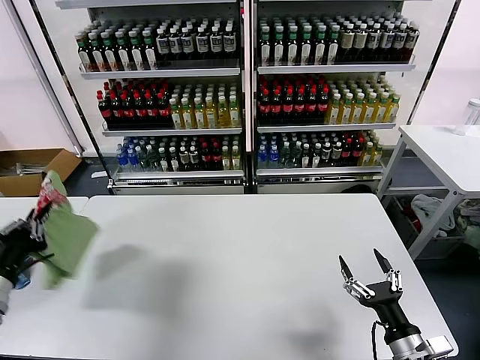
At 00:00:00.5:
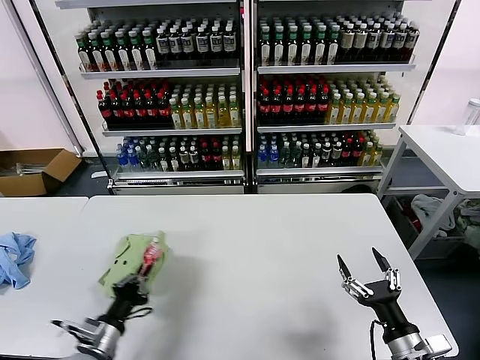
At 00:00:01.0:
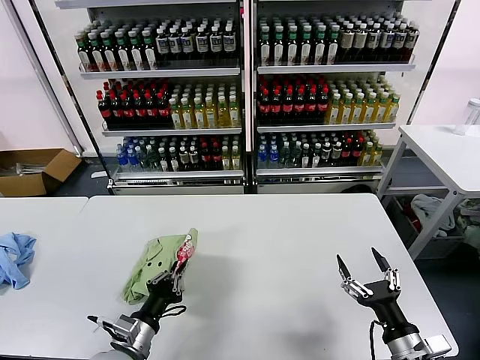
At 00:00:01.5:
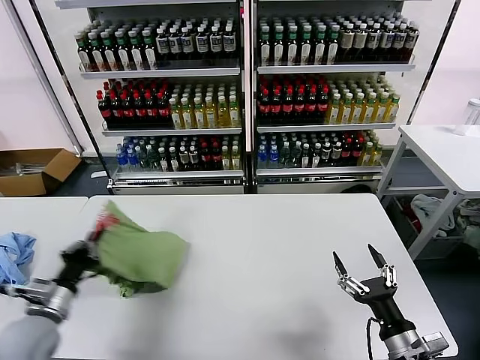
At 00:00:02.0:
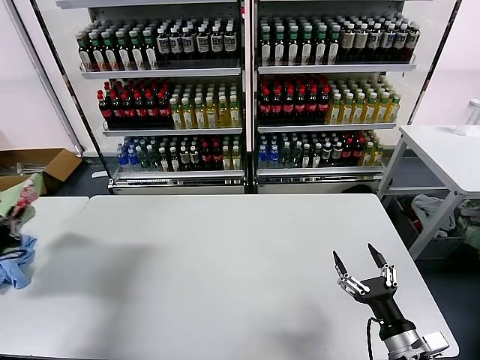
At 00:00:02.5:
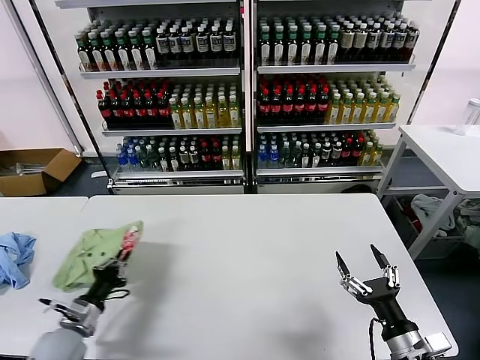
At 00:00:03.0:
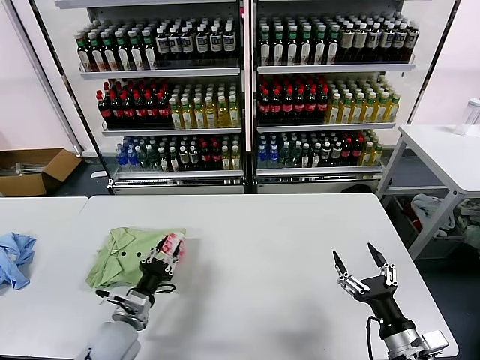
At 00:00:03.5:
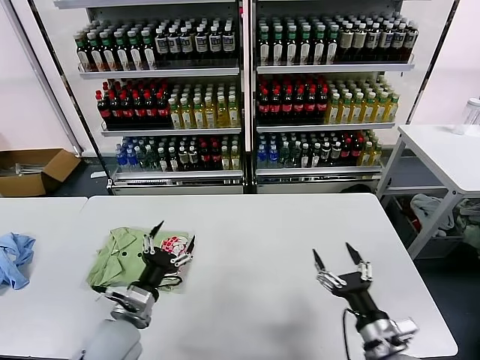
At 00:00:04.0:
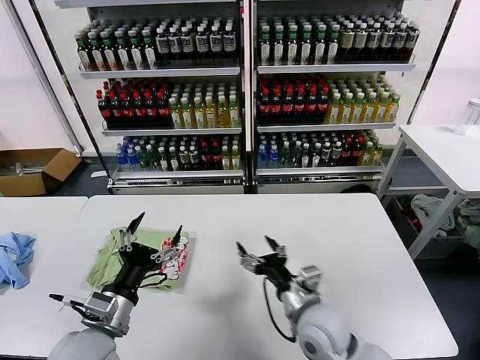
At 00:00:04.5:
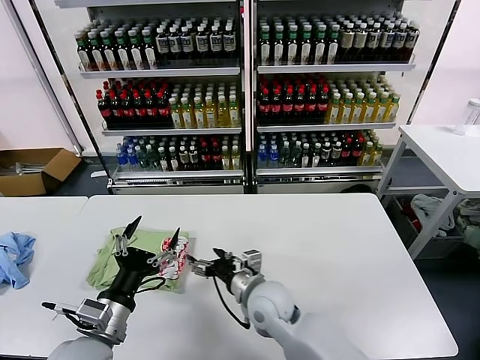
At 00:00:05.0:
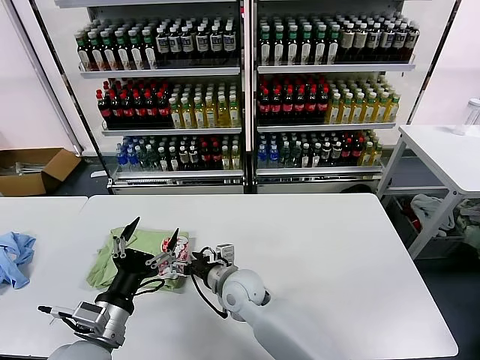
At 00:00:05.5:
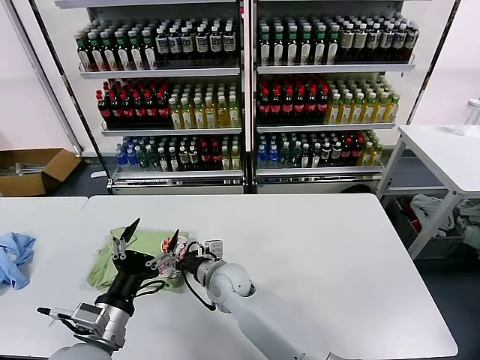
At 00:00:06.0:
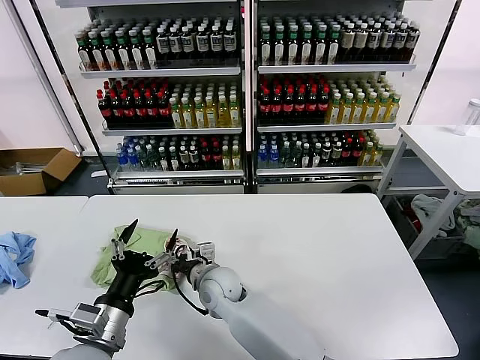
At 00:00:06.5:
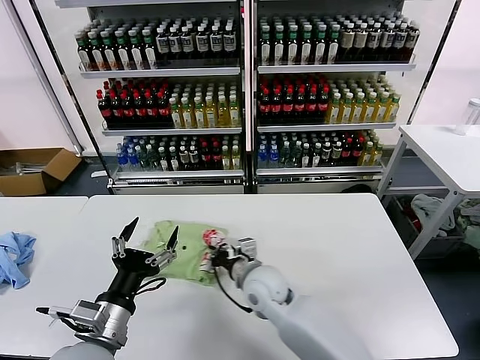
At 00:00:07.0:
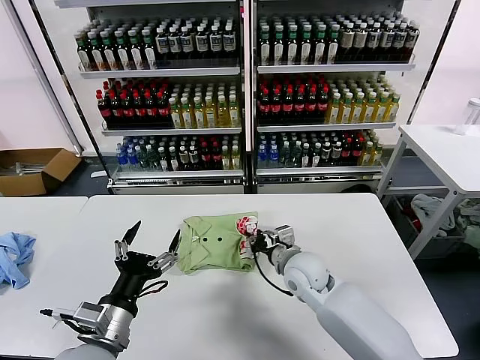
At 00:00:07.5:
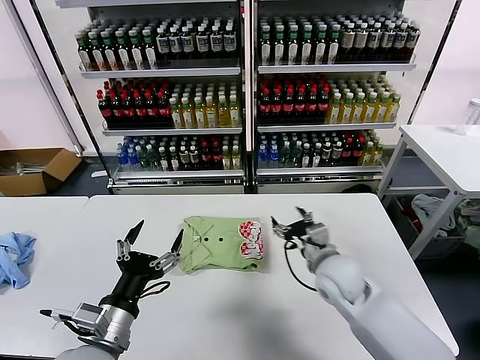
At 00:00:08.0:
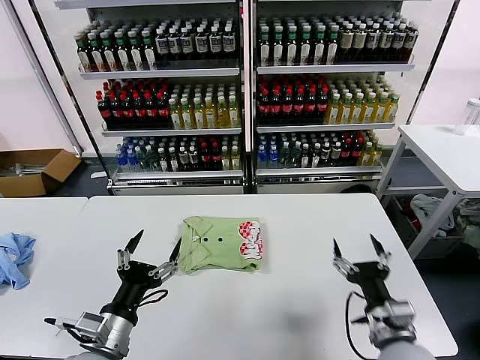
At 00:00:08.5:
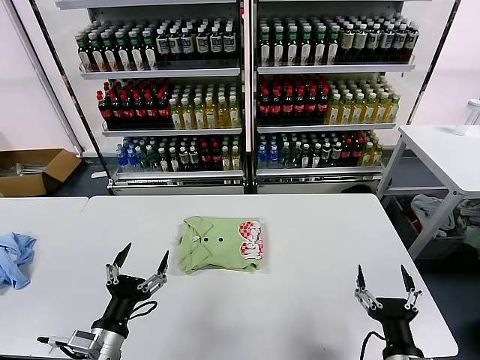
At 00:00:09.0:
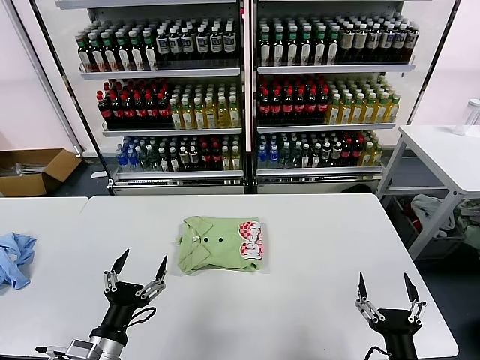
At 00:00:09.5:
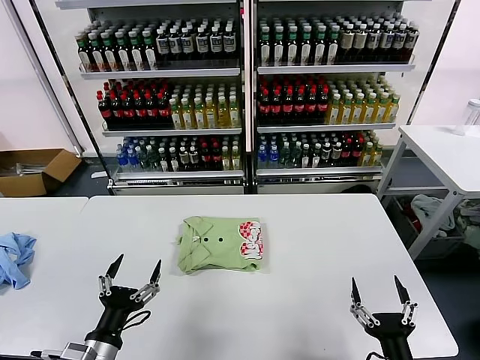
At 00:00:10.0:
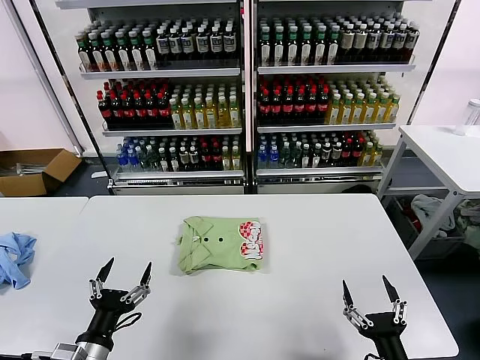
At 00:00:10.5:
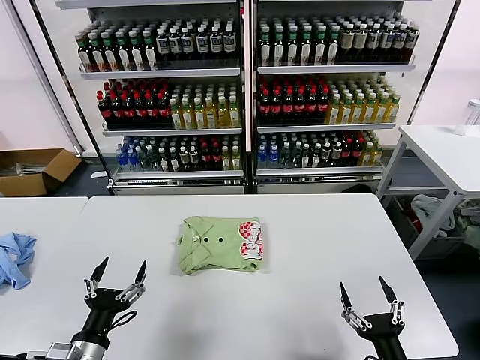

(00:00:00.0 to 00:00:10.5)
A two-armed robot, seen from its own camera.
Task of the whole recording: fold and organize the clothes.
Step, 00:00:00.0 - 00:00:03.0: Flip the folded clothes over with left gripper.
Step, 00:00:03.5 - 00:00:07.0: Drag the clothes to the center of the table.
00:00:00.0 - 00:00:02.0: The left gripper moves to the left and downward, about 15 cm.
00:00:02.0 - 00:00:04.0: The left gripper is displaced to the right by roughly 30 cm, and opens up, while the right gripper moves to the left and forward, some 20 cm.
00:00:04.0 - 00:00:06.5: The right gripper is displaced to the left and forward by roughly 15 cm, and closes up.
00:00:06.5 - 00:00:08.5: The left gripper moves downward, roughly 5 cm; the right gripper travels to the right and backward by some 35 cm, and opens.
00:00:08.5 - 00:00:10.5: The grippers stay close to where they were, moving slightly.

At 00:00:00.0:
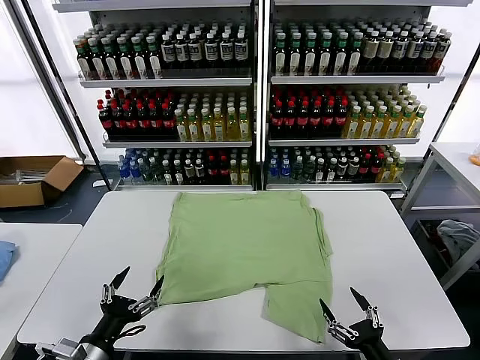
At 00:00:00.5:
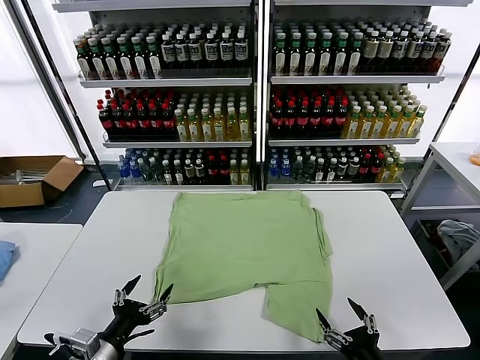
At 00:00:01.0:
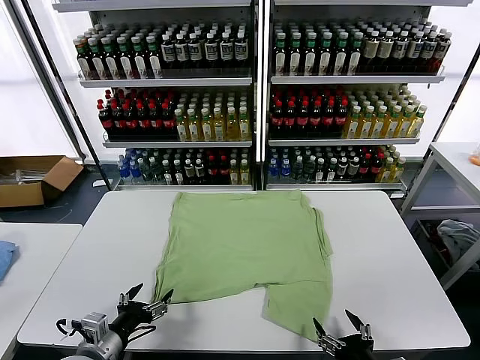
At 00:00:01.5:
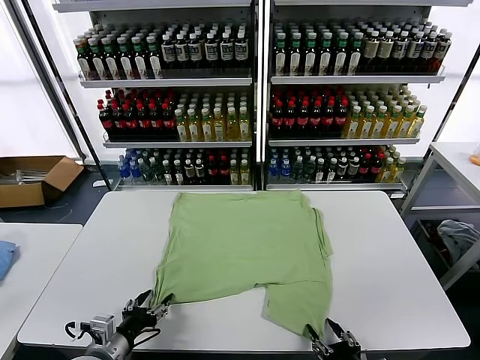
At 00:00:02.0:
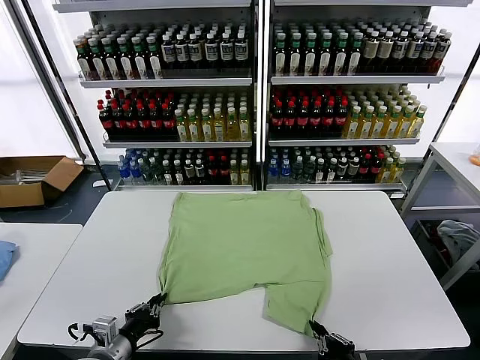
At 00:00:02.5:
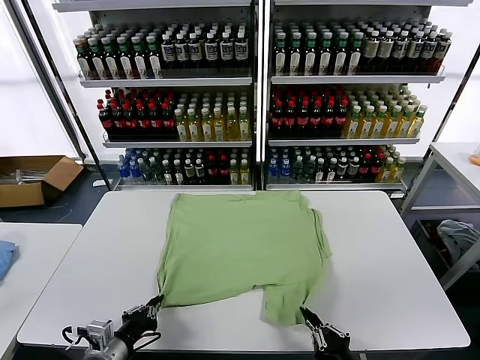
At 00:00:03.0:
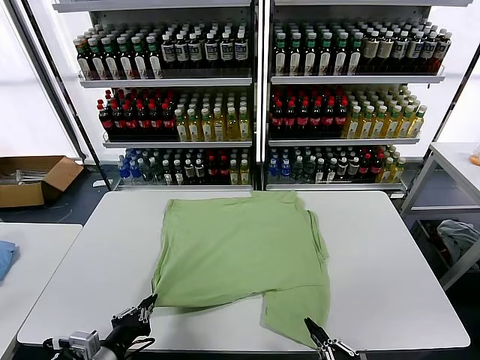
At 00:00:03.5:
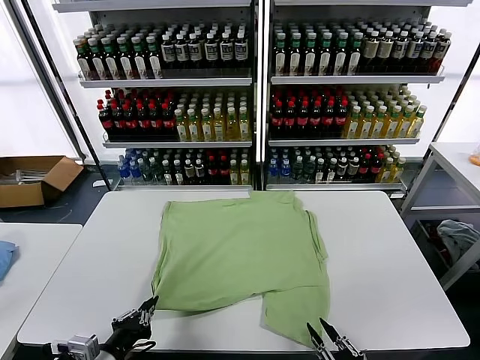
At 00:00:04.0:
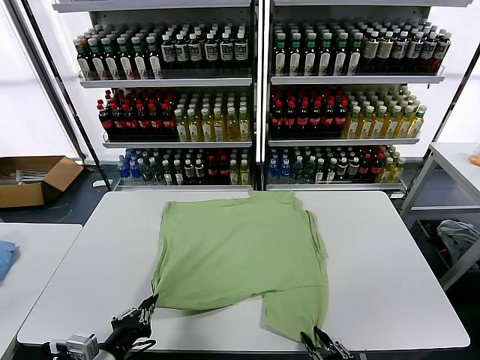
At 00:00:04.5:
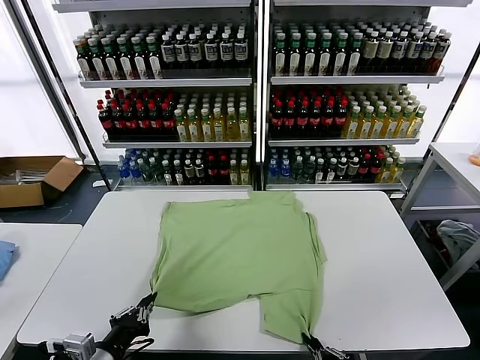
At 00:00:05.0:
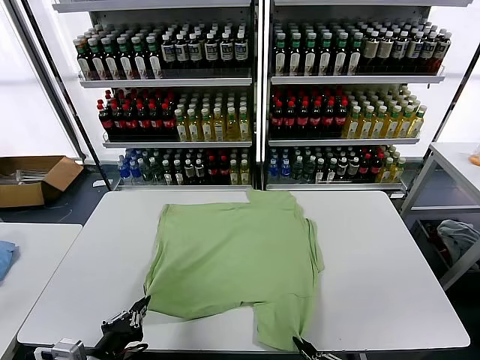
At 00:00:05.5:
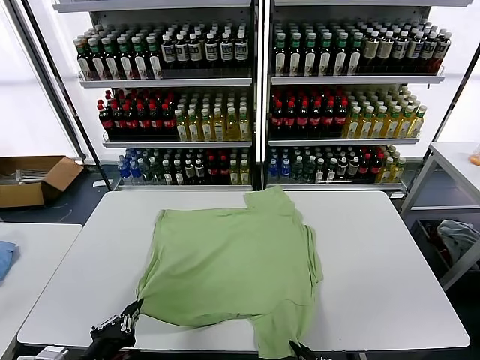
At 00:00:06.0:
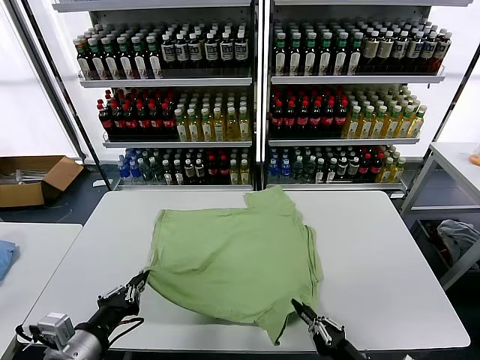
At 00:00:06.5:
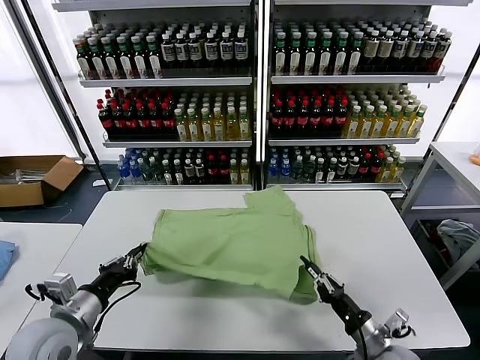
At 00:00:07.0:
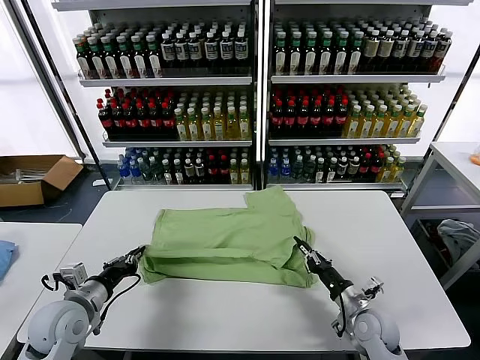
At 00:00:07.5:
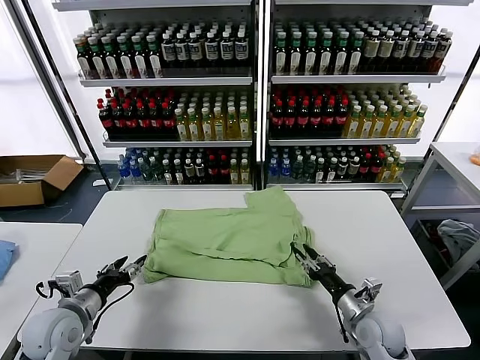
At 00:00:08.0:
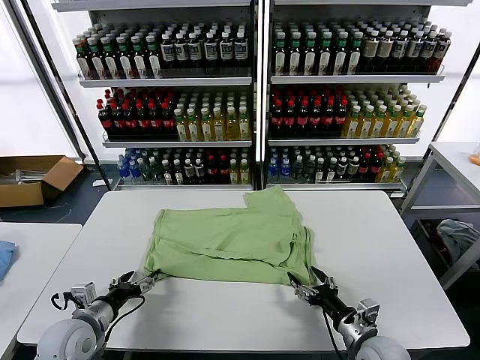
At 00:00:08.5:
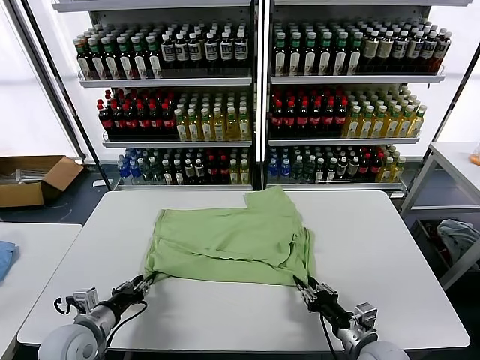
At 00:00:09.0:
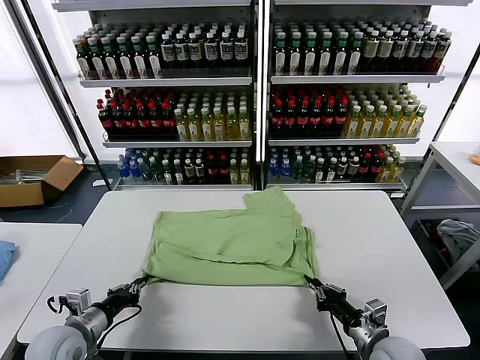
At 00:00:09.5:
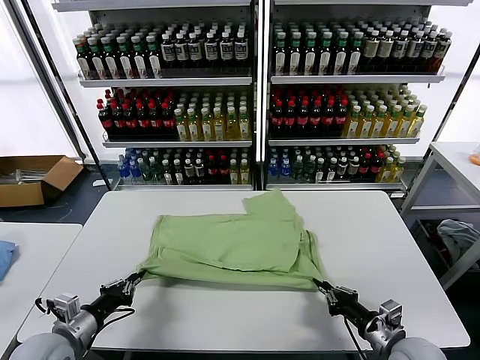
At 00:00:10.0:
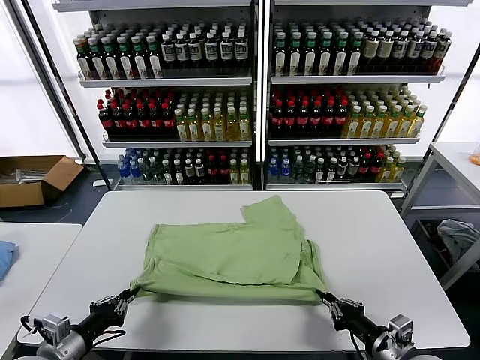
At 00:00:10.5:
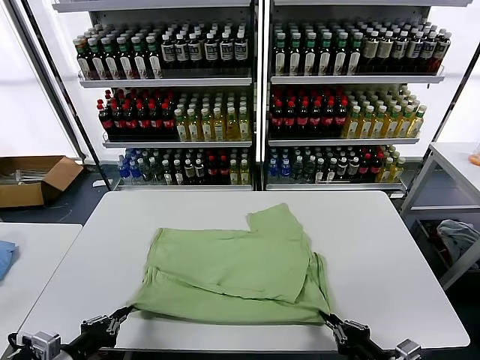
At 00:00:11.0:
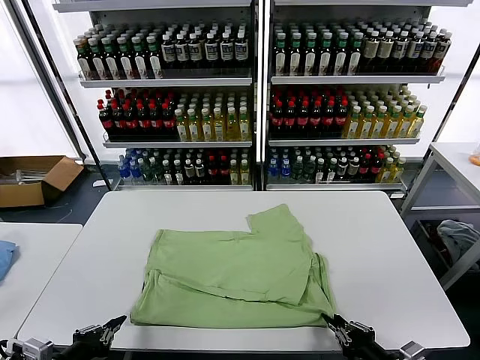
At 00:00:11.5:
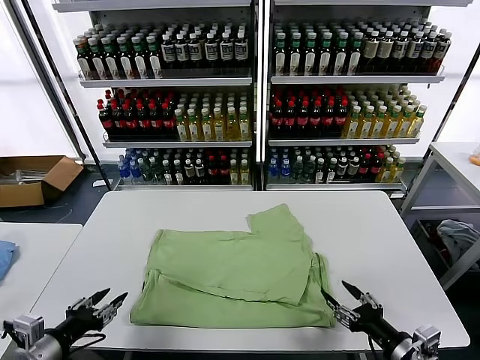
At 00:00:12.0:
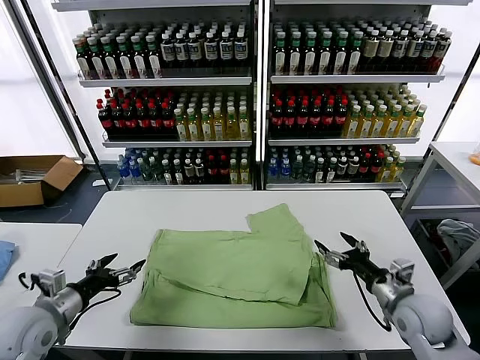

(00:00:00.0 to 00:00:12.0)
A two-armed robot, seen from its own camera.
Task of the whole recording: fold and organize the clothes.
Step, 00:00:00.0 - 00:00:04.0: use both grippers simultaneously to clamp the lower edge of the clothing fabric.
Step, 00:00:04.5 - 00:00:07.5: use both grippers to drag the lower edge of the fabric forward and fold it over the upper edge.
Step, 00:00:08.0 - 00:00:11.0: Drag the clothes downward with both gripper.
00:00:02.0 - 00:00:04.0: The left gripper heads upward, covering roughly 5 cm.
00:00:04.0 - 00:00:06.0: The left gripper changes place by some 5 cm, while the right gripper is displaced forward by roughly 5 cm.
00:00:06.0 - 00:00:08.0: The left gripper goes approximately 15 cm downward, forward and to the left, and opens up. The right gripper goes roughly 10 cm forward, and opens.
00:00:08.0 - 00:00:10.0: The left gripper is displaced backward by roughly 10 cm, and closes up. The right gripper goes approximately 10 cm backward and to the right, and closes up.
00:00:10.0 - 00:00:12.0: The left gripper is displaced forward by about 10 cm, and opens up. The right gripper goes about 15 cm forward, and opens up.

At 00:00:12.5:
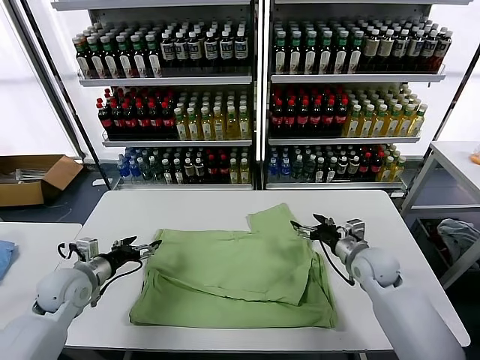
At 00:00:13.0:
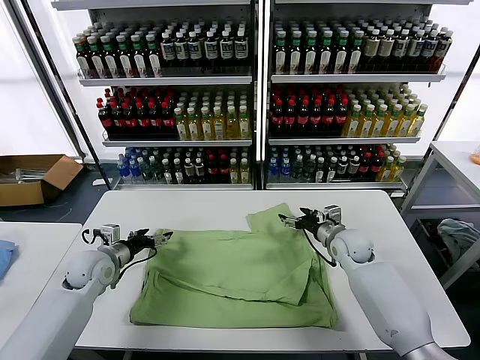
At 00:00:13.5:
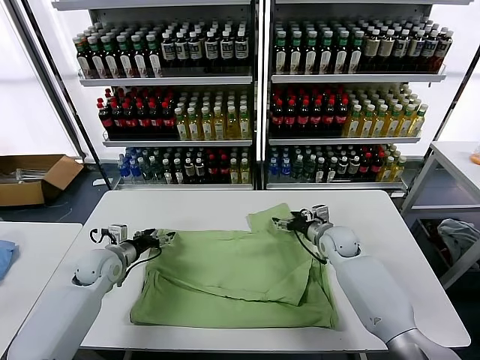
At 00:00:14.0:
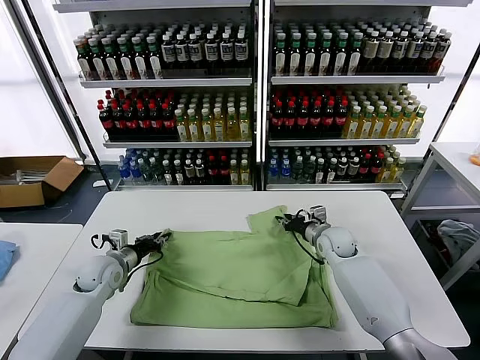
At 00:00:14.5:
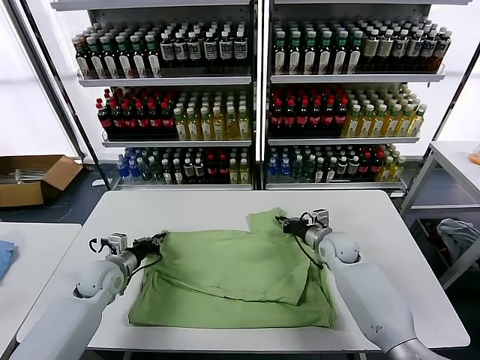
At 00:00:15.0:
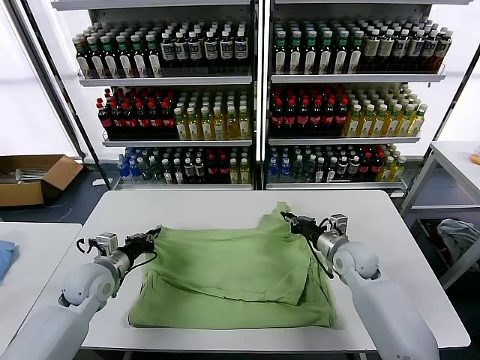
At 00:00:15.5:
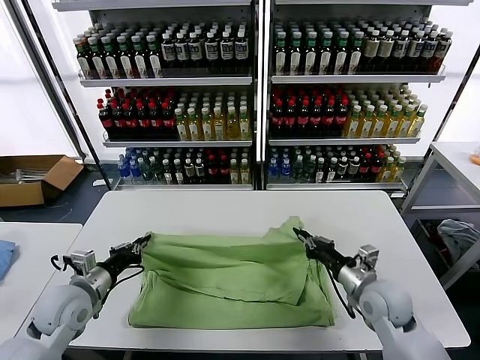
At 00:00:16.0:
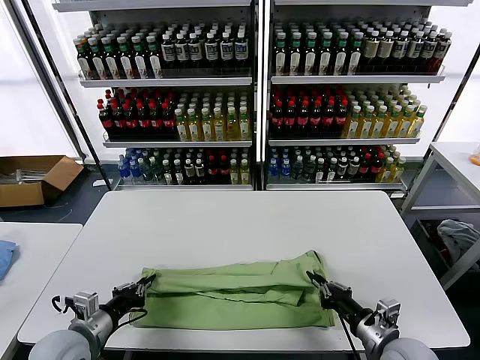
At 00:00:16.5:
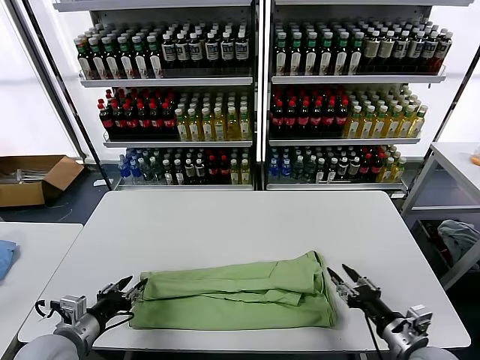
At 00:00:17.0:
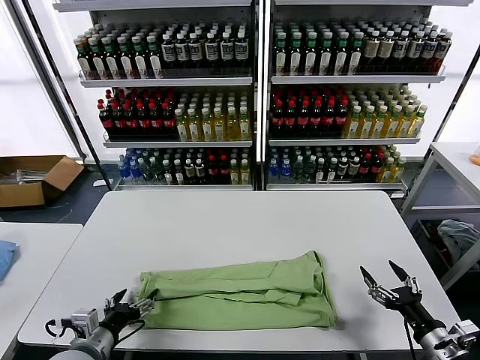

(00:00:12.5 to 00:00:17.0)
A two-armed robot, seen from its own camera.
Task of the whole recording: fold and organize the clothes.
Step, 00:00:12.5 - 00:00:14.0: use both grippers simultaneously to clamp the upper edge of the clothing fabric.
Step, 00:00:14.5 - 00:00:16.0: use both grippers to drag the upper edge of the fabric backward and fold it over the lower edge.
00:00:12.5 - 00:00:14.5: The left gripper goes about 5 cm downward, and closes up. Meanwhile the right gripper travels forward by about 5 cm, and closes up.
00:00:14.5 - 00:00:17.0: The left gripper goes about 20 cm backward, and opens up. The right gripper shifts about 35 cm backward and to the right, and opens.
